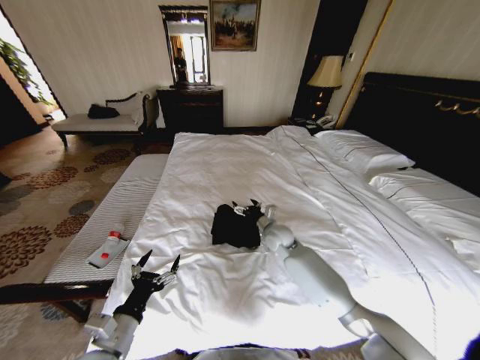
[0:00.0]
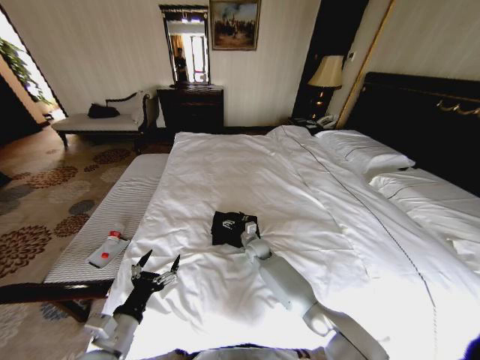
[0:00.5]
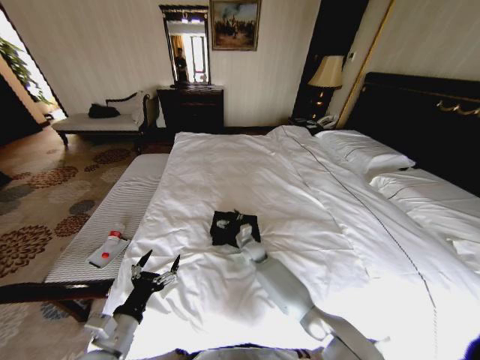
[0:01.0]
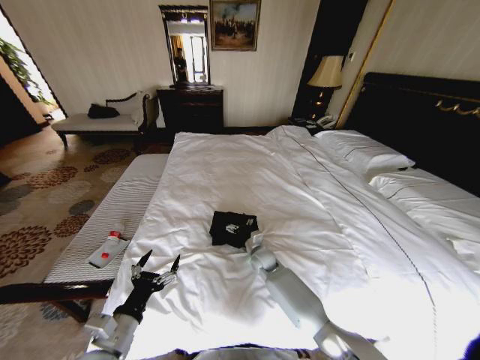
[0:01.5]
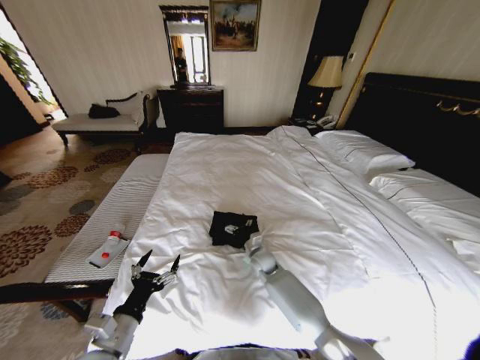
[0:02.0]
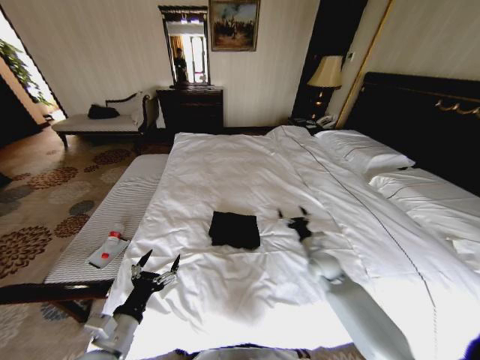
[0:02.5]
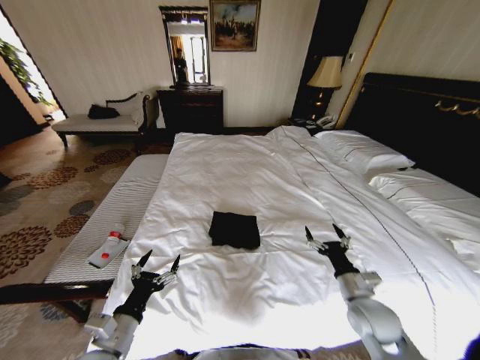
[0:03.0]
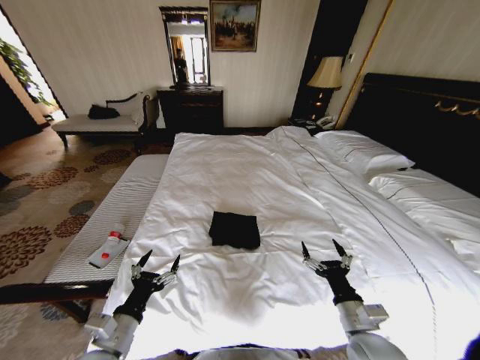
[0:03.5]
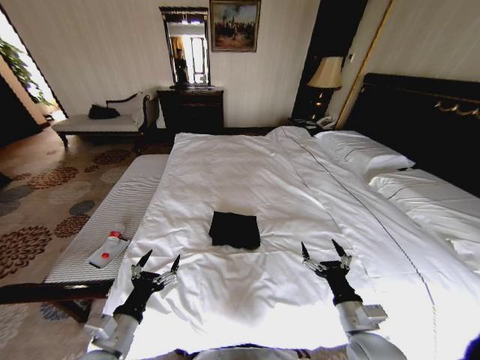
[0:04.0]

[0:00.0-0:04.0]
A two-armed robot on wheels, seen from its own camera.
Task of the whole recording: Fold the clothes on the bed.
0:00.0 to 0:02.0: The right gripper heads downward, covering some 10 cm.
0:02.0 to 0:04.0: The right gripper is displaced backward, to the right and upward by about 35 cm.
